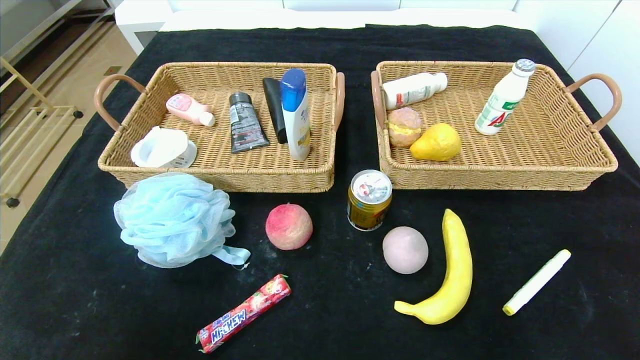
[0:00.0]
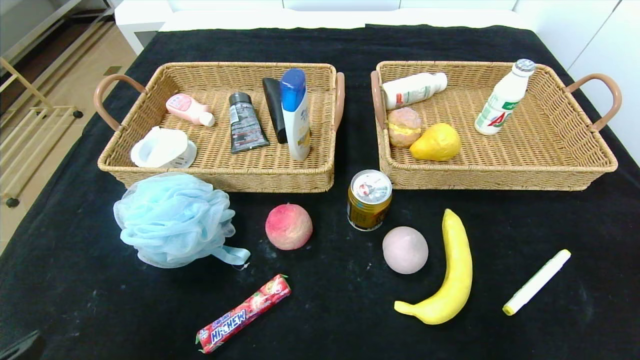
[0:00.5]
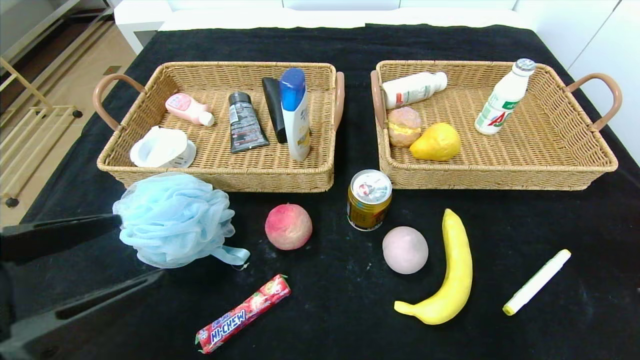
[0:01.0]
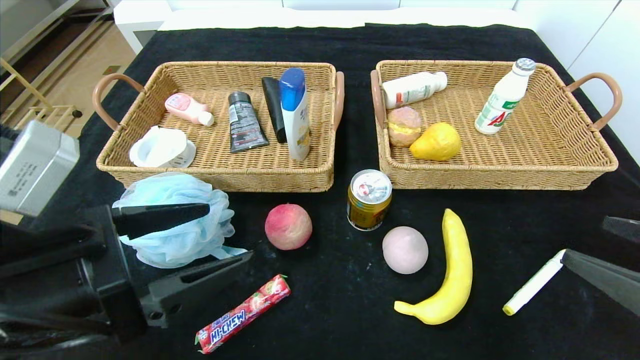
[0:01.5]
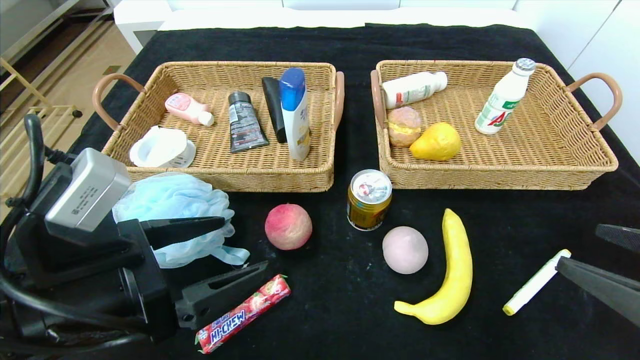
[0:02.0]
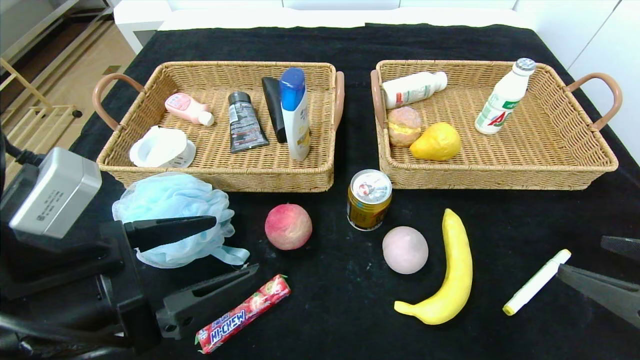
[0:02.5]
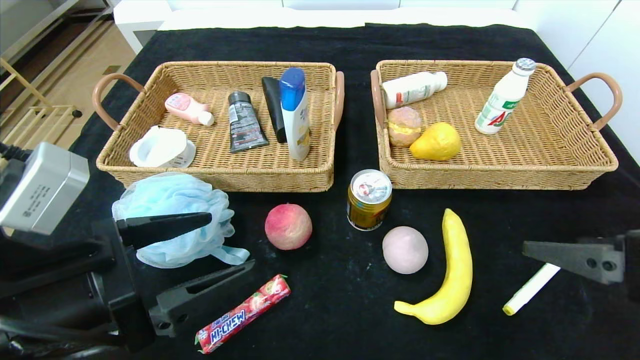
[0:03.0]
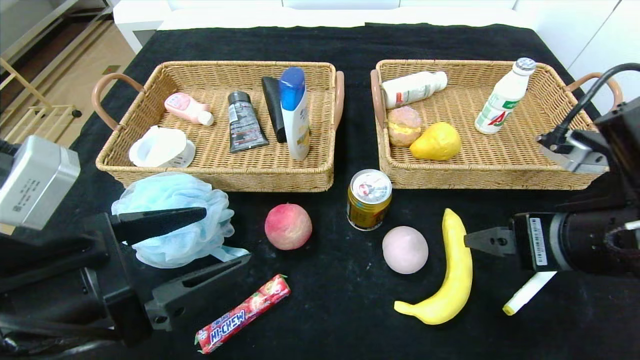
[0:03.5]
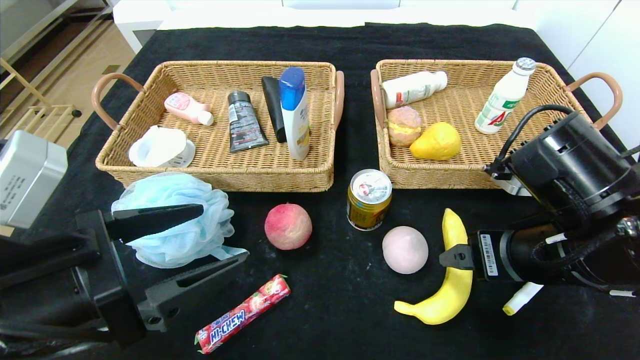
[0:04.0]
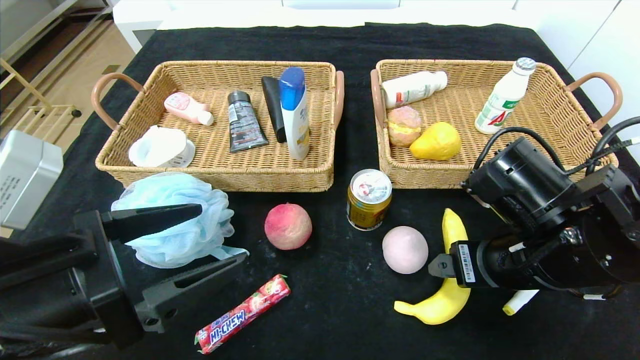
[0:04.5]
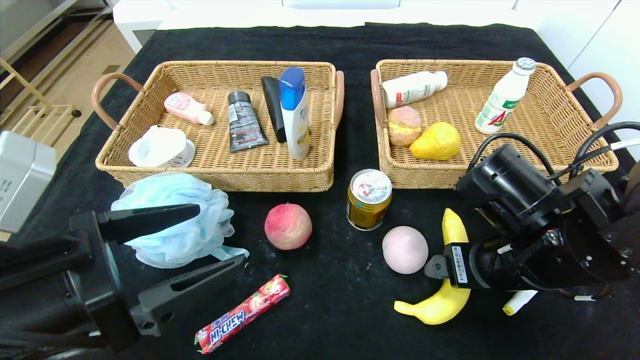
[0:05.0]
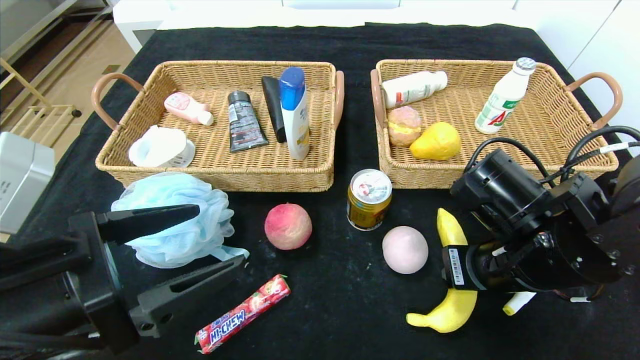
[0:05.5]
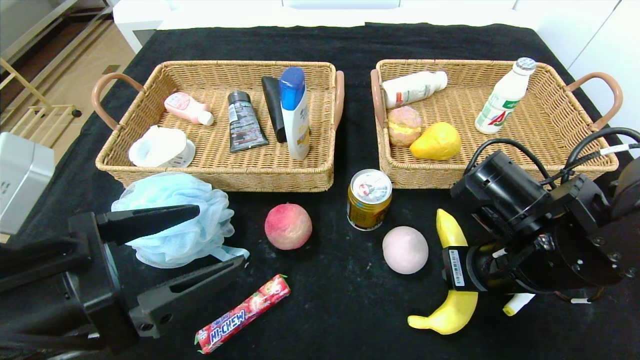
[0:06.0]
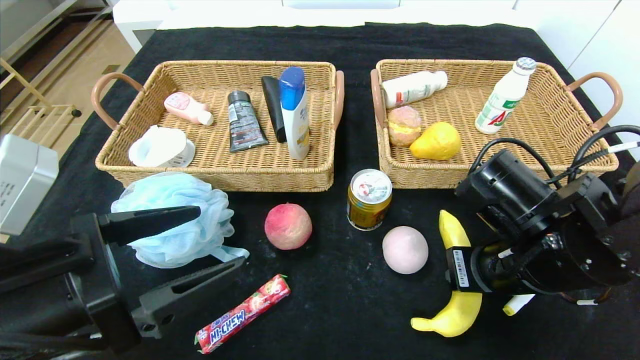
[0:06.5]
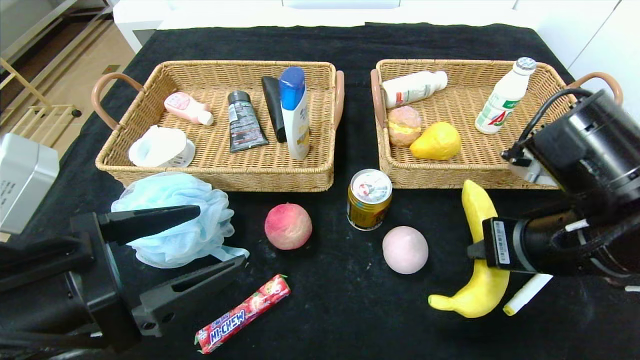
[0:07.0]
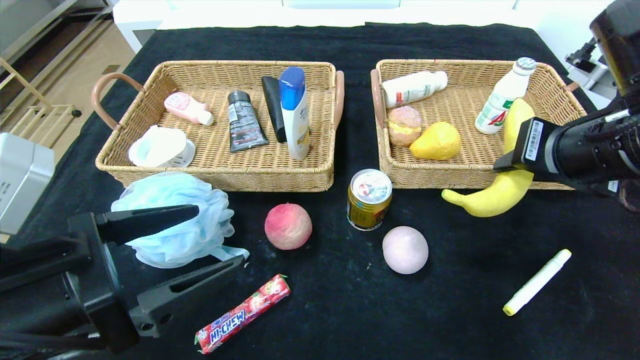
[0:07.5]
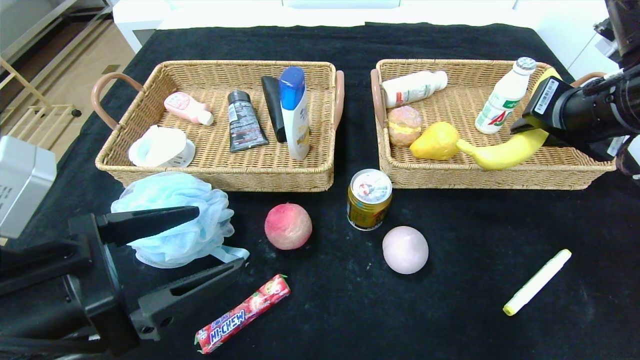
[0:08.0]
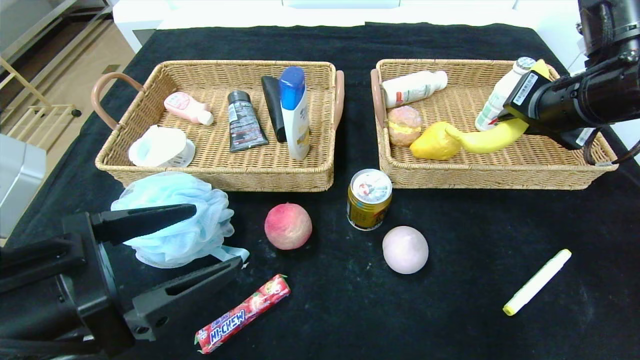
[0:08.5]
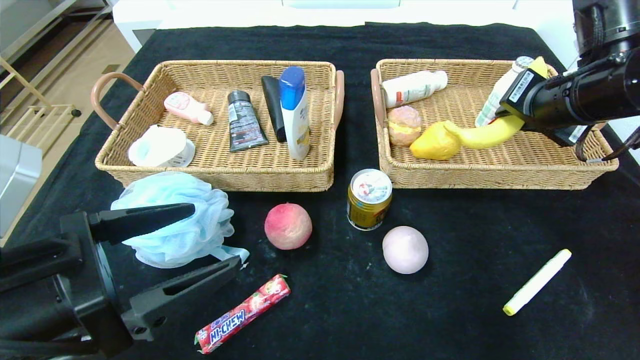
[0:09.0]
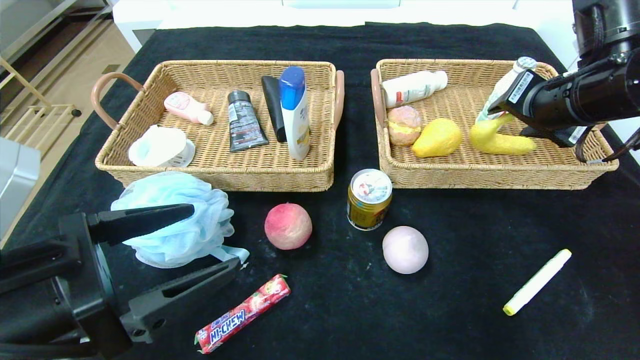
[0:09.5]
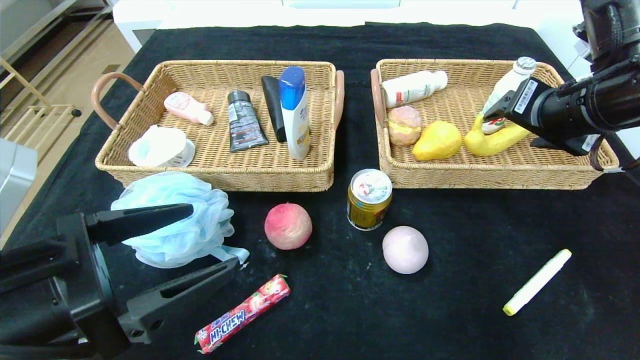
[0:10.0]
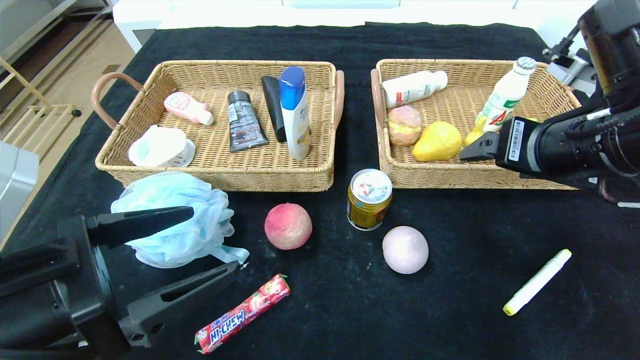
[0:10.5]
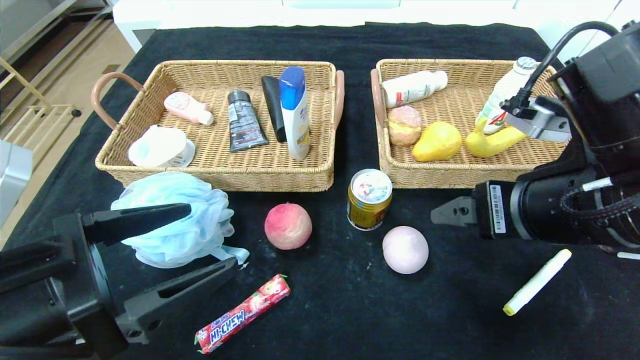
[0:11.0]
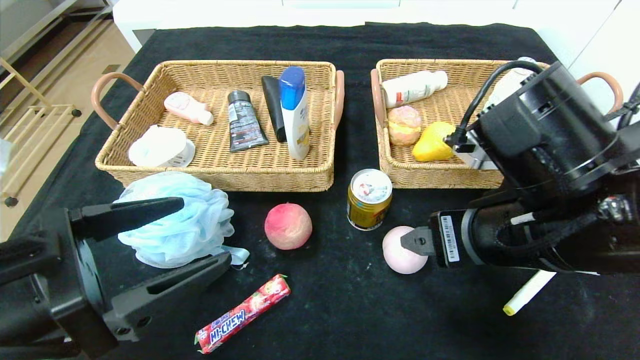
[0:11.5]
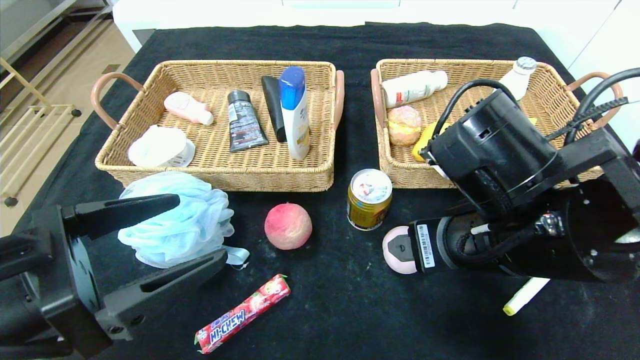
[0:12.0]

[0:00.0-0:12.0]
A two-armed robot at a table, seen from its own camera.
Step, 0:00.0 to 0:09.5: Grasp the banana and put it in the right basket.
0:00.0 to 0:02.0: The left gripper moves forward and to the right, about 20 cm. Meanwhile the right gripper is displaced forward and upward by roughly 15 cm.
0:02.0 to 0:04.0: The right gripper is displaced to the left and forward by about 15 cm.
0:04.0 to 0:06.0: The right gripper closes its fingers.
0:06.0 to 0:08.0: The right gripper shifts about 15 cm upward and to the right.
0:08.0 to 0:10.0: The right gripper opens up.
0:10.0 to 0:12.0: The right gripper travels to the left, backward and downward by some 15 cm.

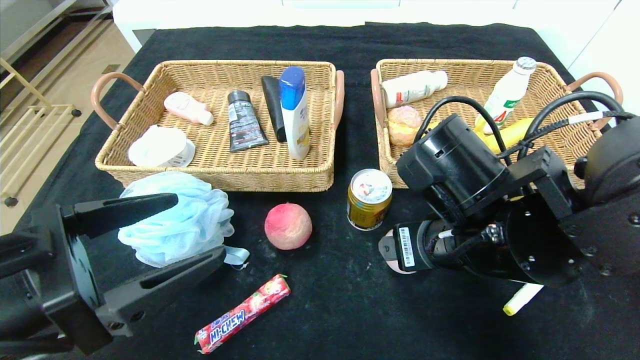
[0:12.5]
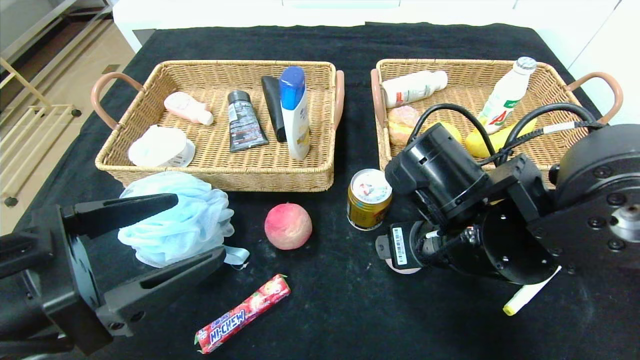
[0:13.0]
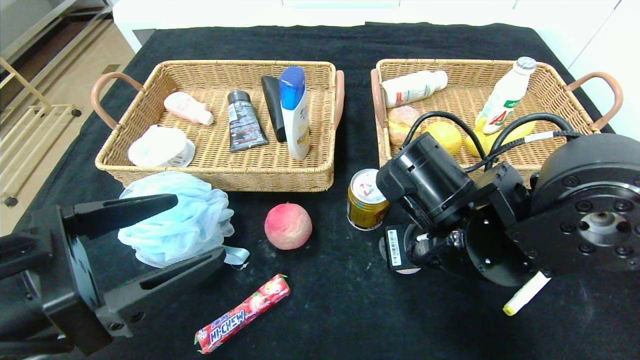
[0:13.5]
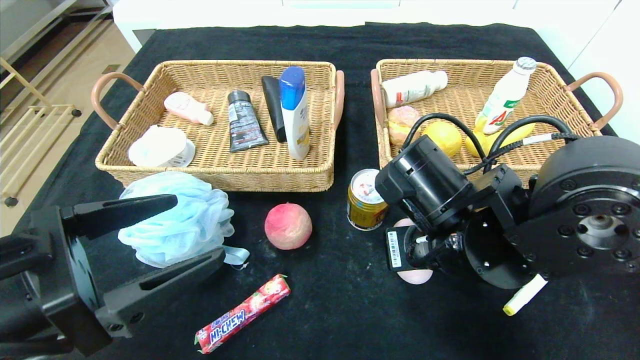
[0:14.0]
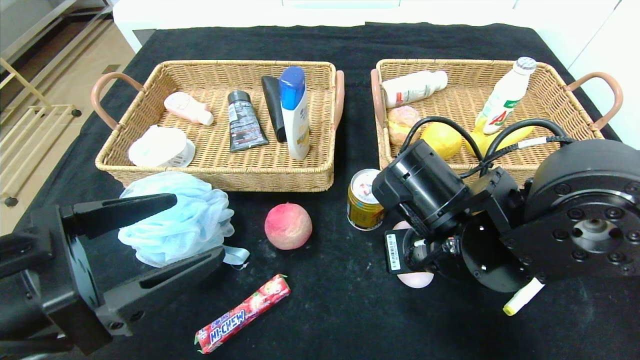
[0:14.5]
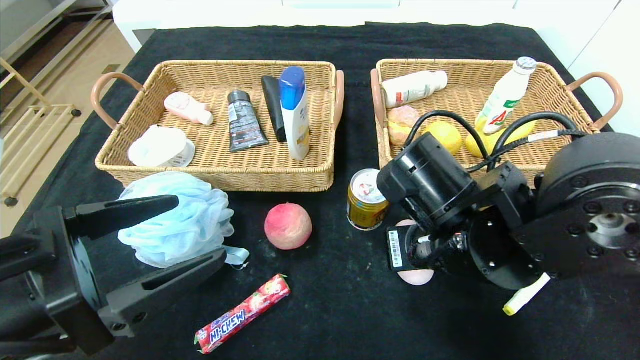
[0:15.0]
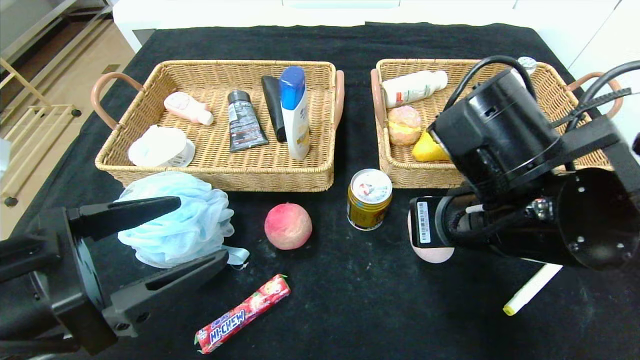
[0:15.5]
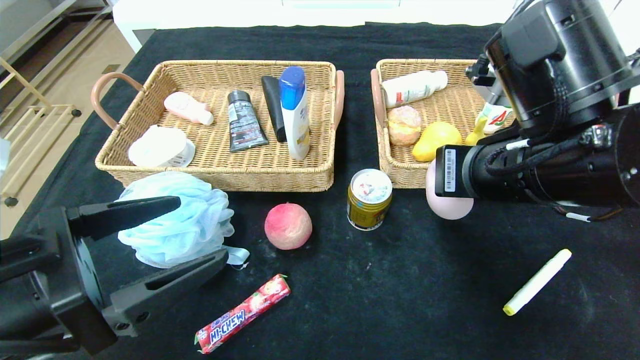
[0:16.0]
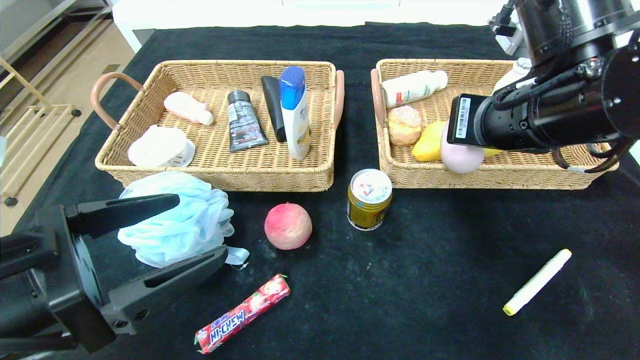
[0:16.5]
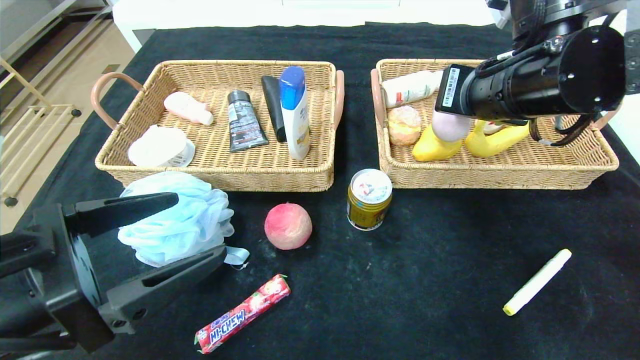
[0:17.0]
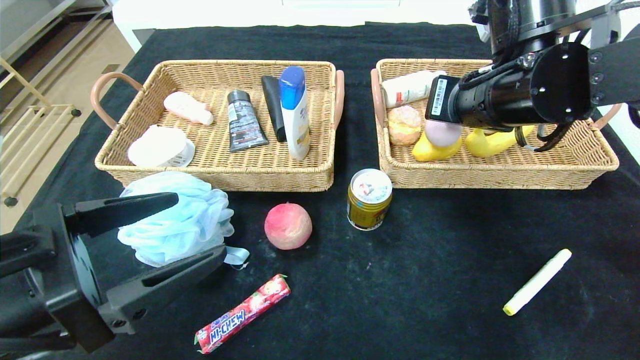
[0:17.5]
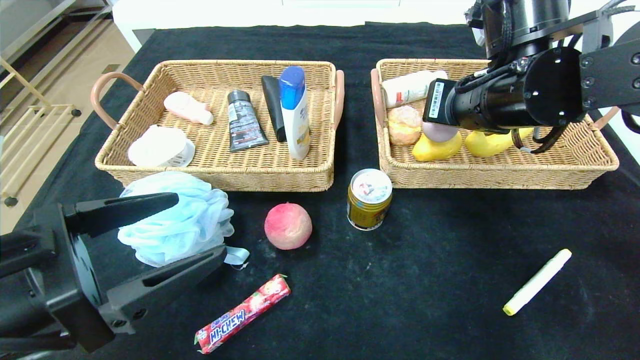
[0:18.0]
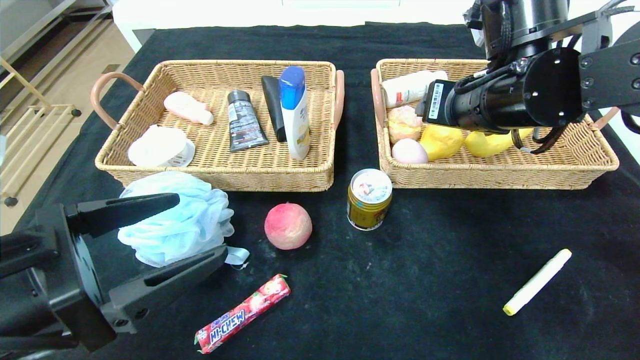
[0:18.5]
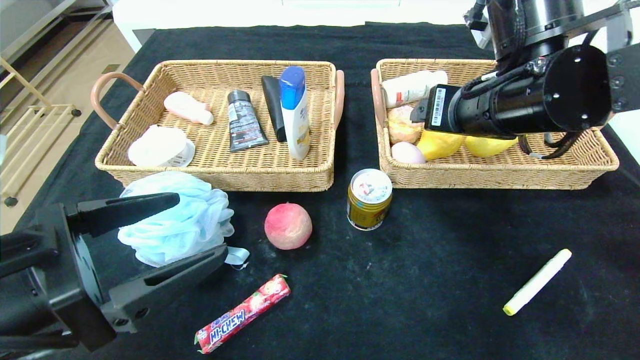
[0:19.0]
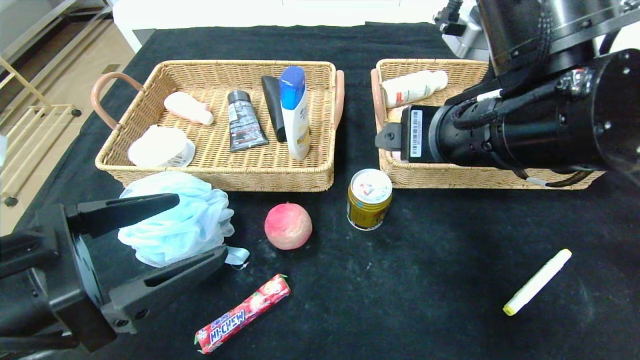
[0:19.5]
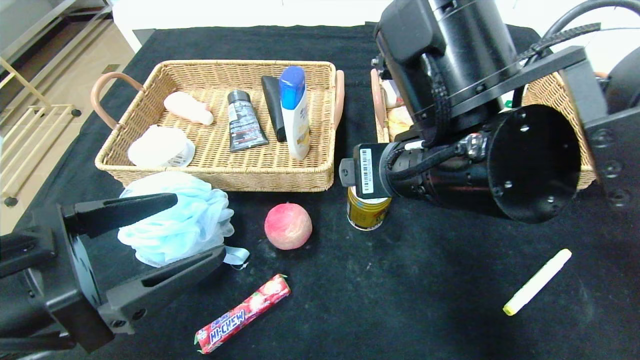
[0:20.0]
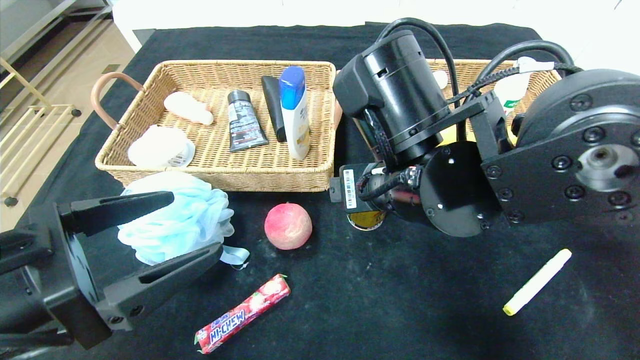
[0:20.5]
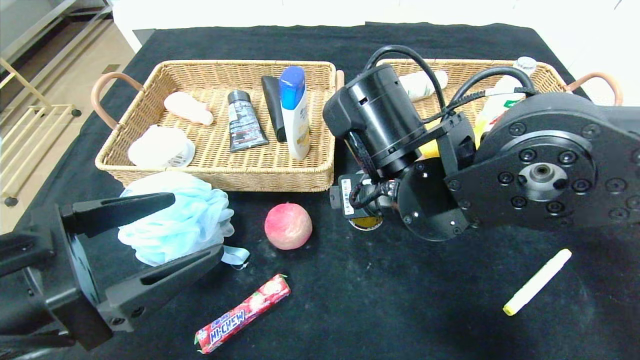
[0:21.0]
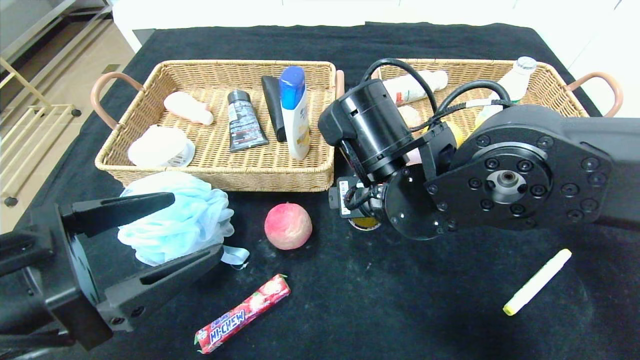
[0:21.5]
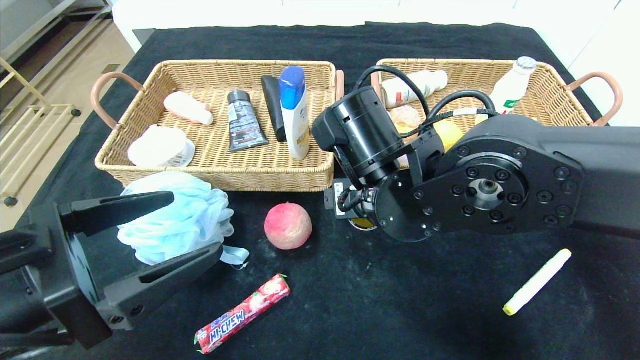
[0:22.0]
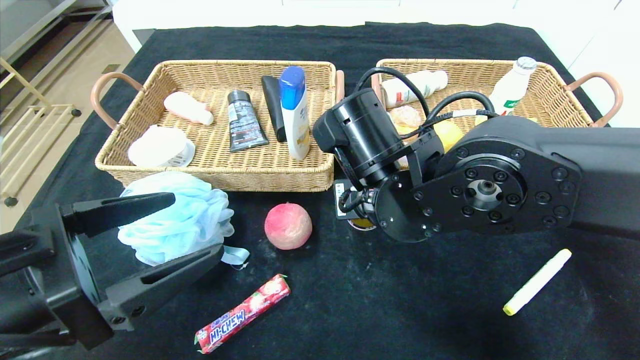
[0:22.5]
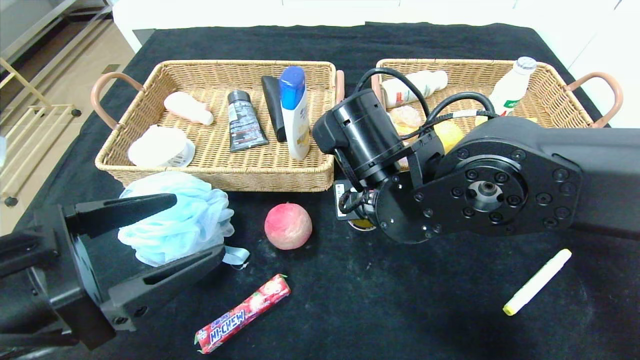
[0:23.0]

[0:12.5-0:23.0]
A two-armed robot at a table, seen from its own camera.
Step, 0:12.5 to 0:19.5: Grasp the peach and put it in the right basket.
0:12.5 to 0:14.5: The right gripper closes its fingers.
0:14.5 to 0:16.5: The right gripper is displaced upward and to the right by roughly 15 cm.
0:16.5 to 0:19.0: The right gripper opens up.
0:19.0 to 0:21.0: The right gripper moves to the left and downward, approximately 10 cm.
0:21.0 to 0:23.0: The grippers move only a little.
